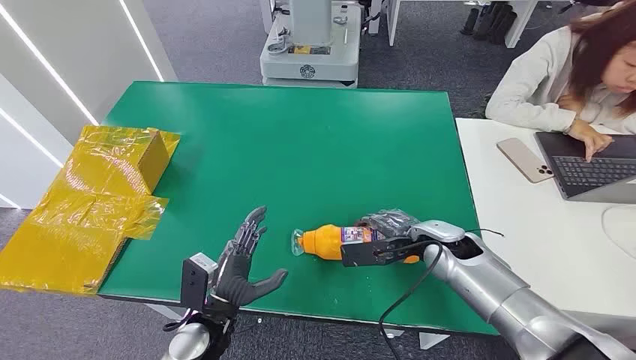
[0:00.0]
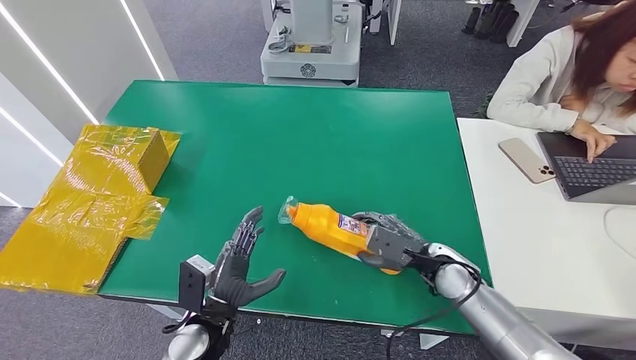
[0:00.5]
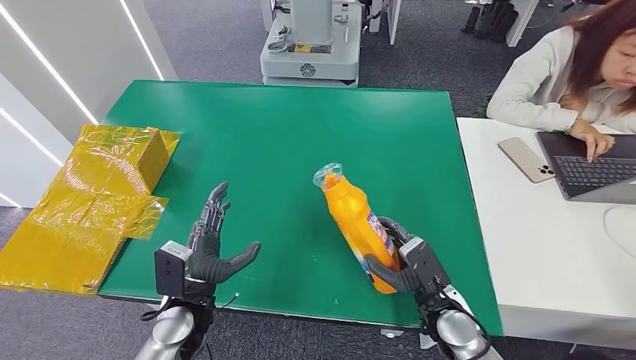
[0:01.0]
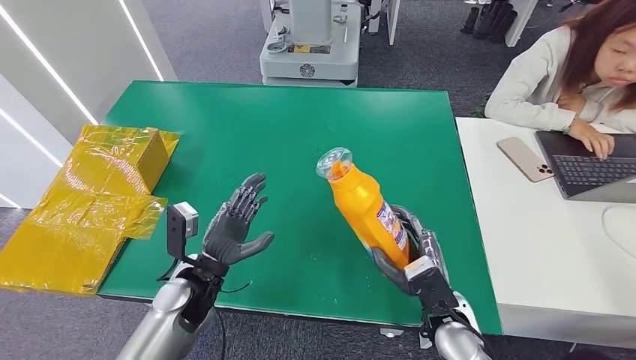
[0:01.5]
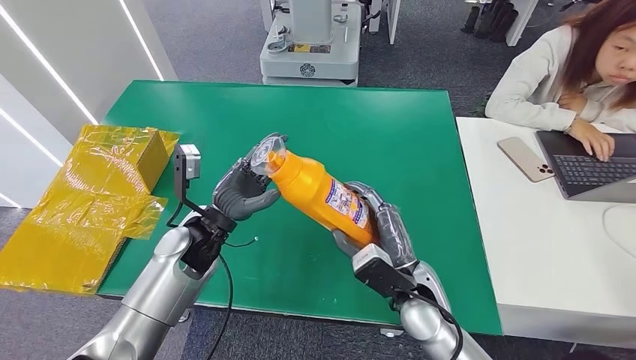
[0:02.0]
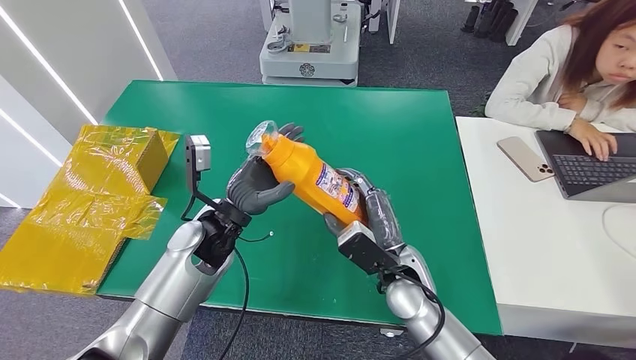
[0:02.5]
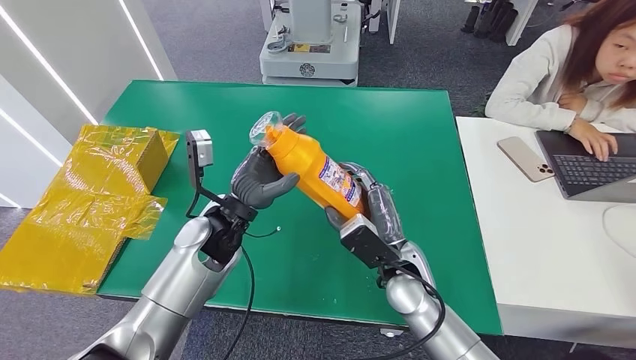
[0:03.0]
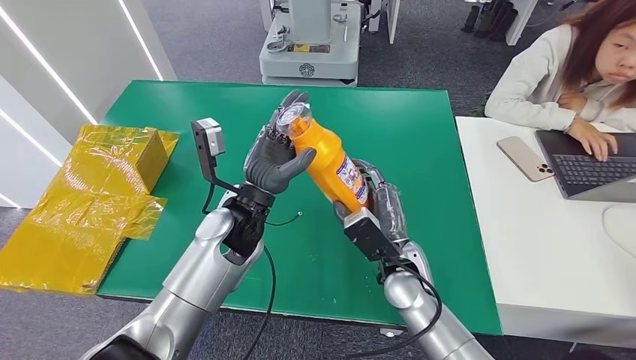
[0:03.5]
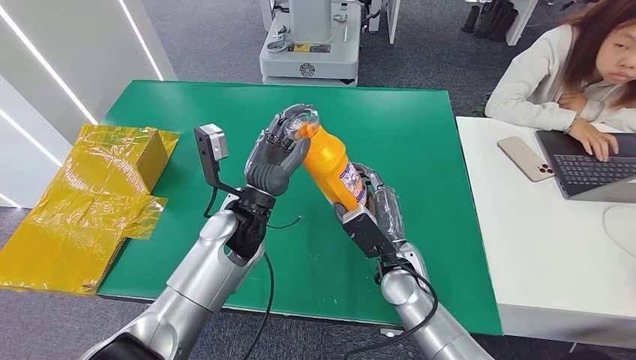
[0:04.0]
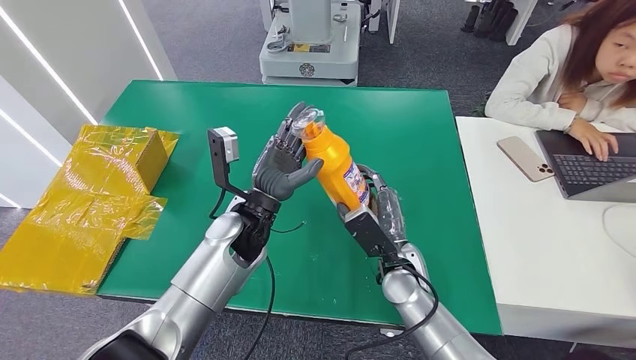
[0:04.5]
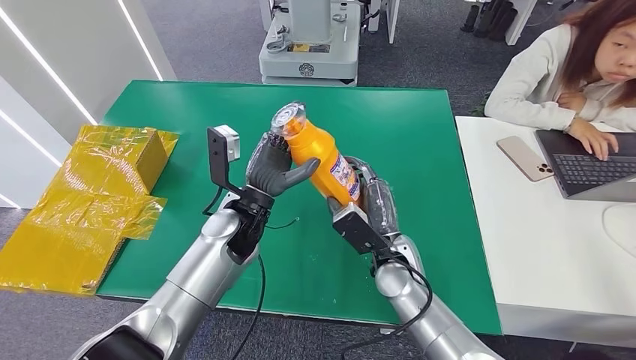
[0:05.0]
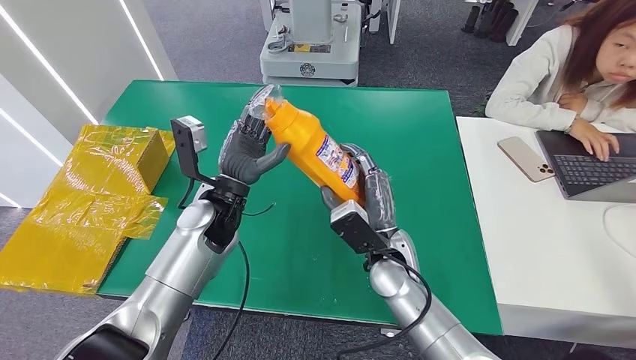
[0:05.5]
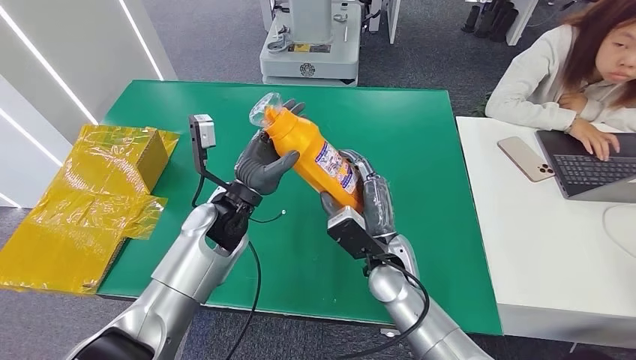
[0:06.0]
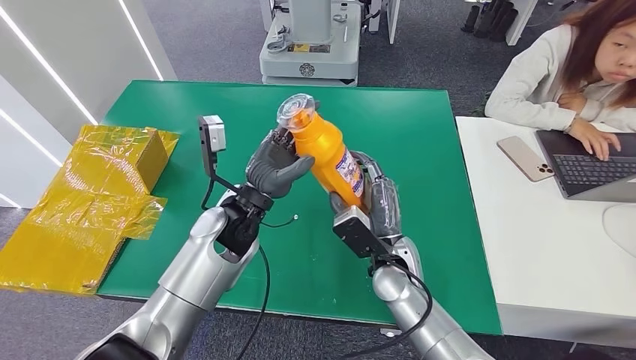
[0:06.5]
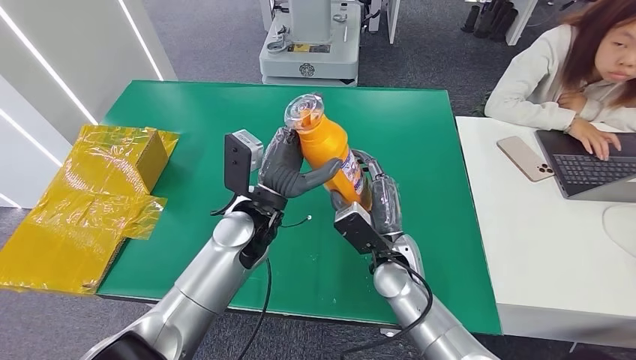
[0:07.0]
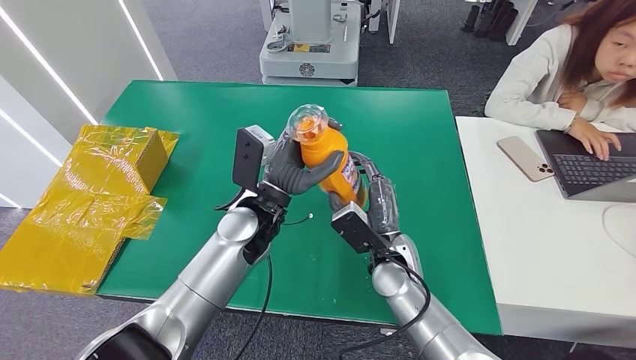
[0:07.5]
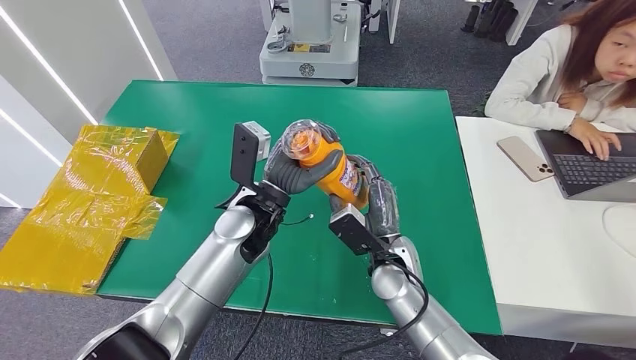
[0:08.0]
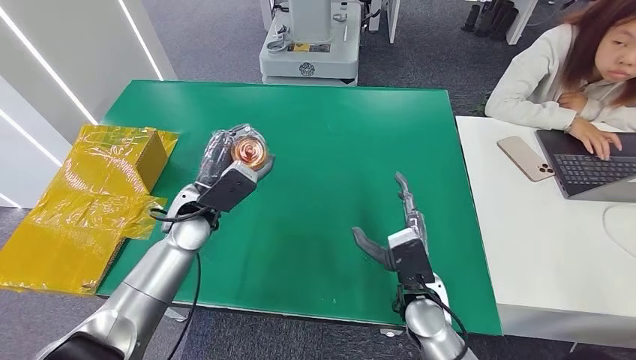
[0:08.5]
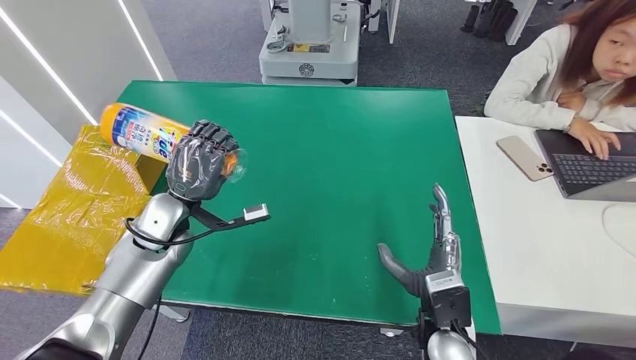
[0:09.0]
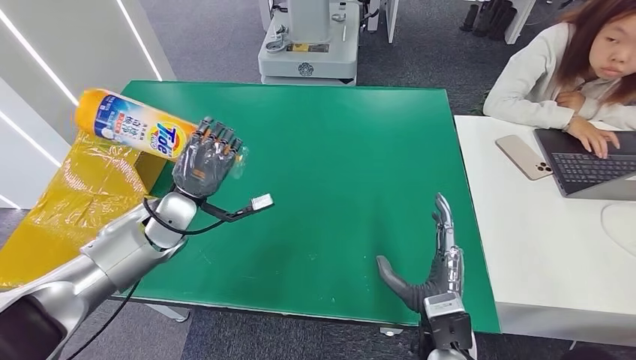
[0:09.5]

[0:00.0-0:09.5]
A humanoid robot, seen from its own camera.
Step, 0:00.0 to 0:02.0: Pick up the bottle from the table.
0:02.0 to 0:04.0: The left hand goes roughly 10 cm to the right. The right hand shifts by roughly 5 cm.
0:04.0 to 0:05.5: The left hand moves approximately 5 cm.
0:05.5 to 0:07.5: The left hand travels to the right by some 5 cm.

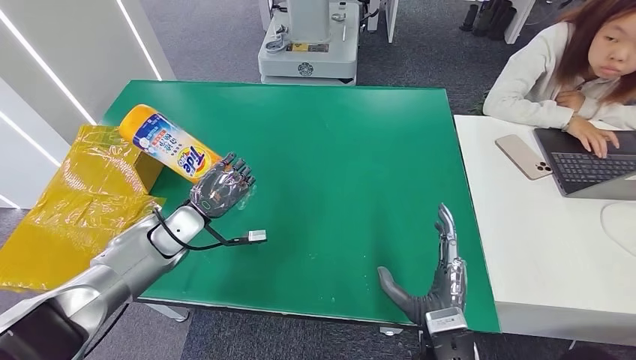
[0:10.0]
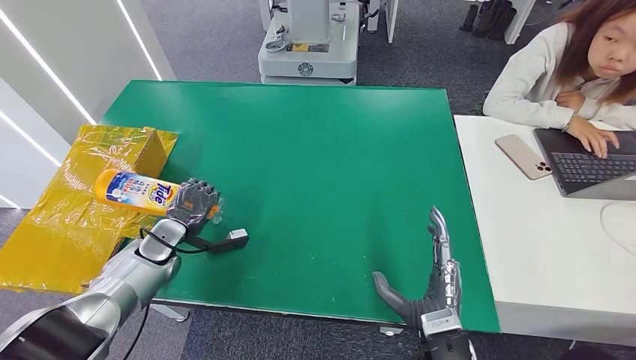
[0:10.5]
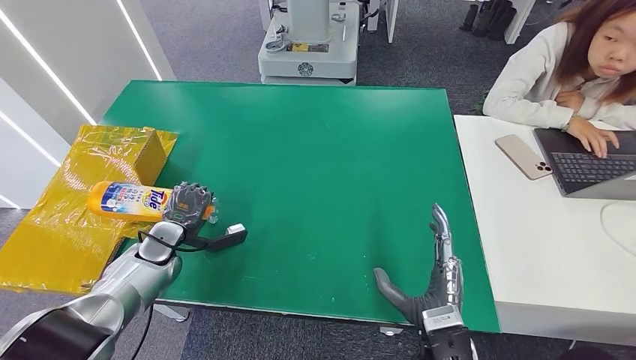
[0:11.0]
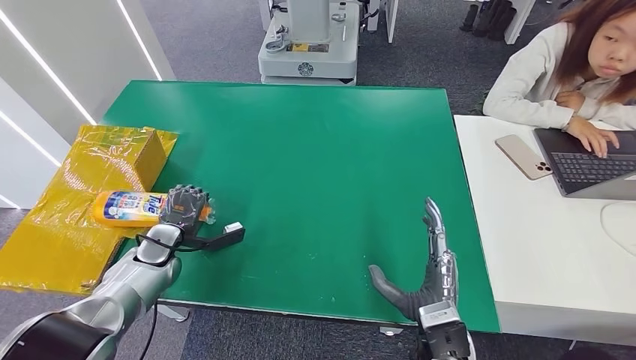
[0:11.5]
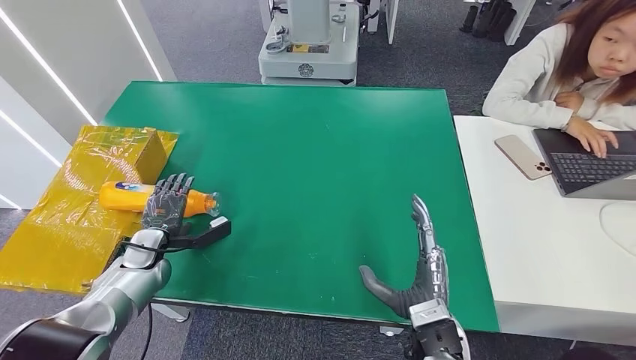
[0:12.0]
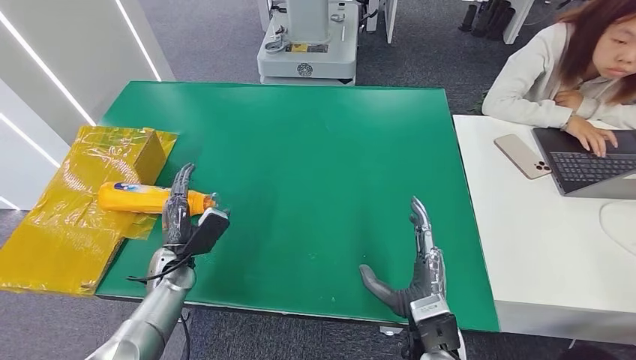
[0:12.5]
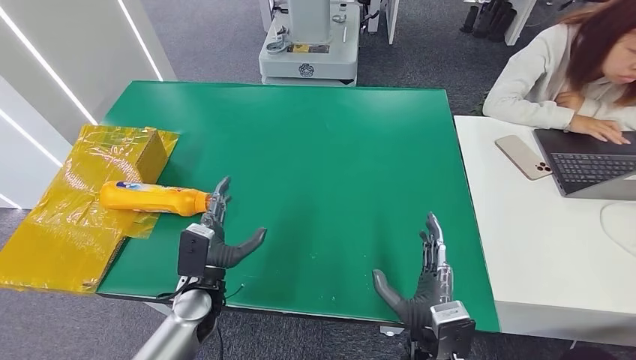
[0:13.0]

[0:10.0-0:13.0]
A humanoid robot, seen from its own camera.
Step, 0:10.0 to 0:13.0: Turn the bottle to the front side.
0:10.0 to 0:11.5: The left hand is displaced downward and to the left by about 10 cm.
0:11.5 to 0:13.0: The left hand goes roughly 15 cm to the right and backward.
